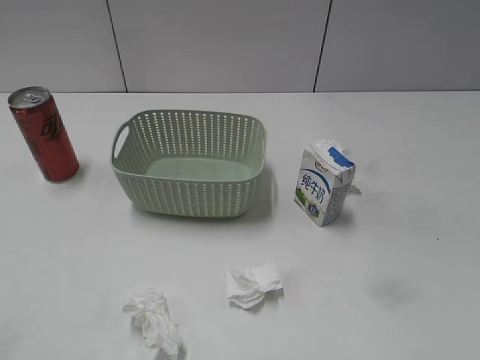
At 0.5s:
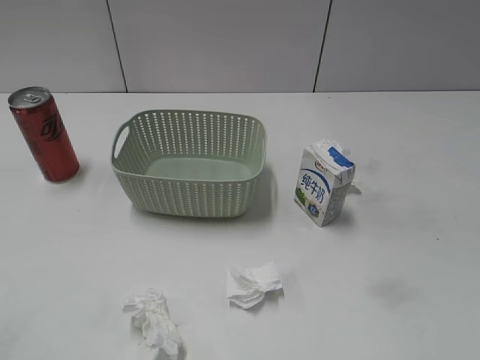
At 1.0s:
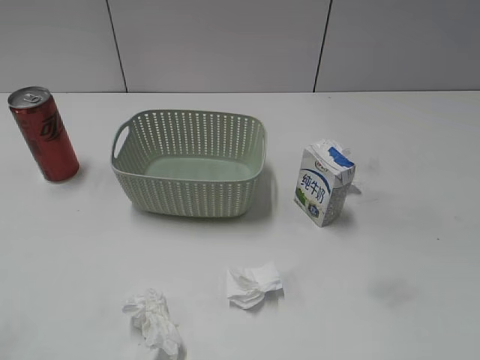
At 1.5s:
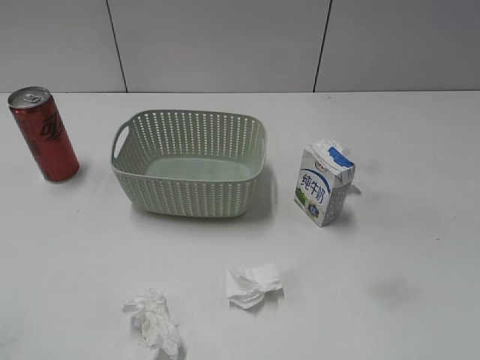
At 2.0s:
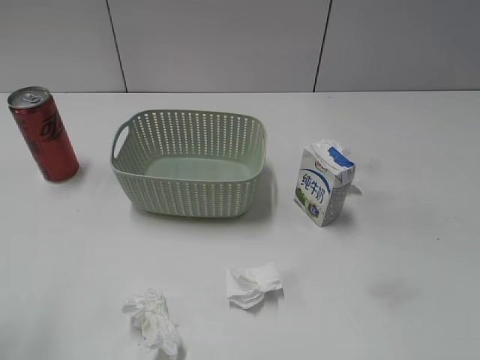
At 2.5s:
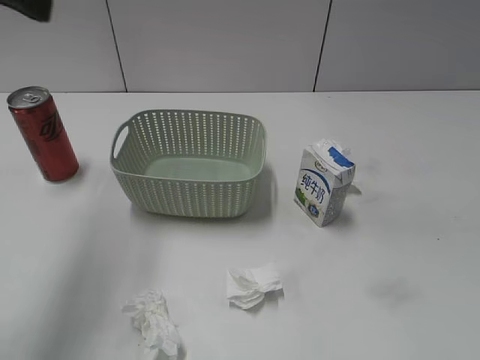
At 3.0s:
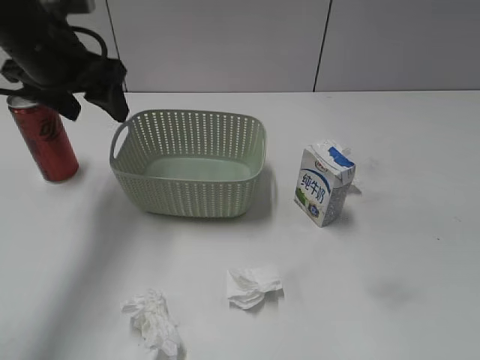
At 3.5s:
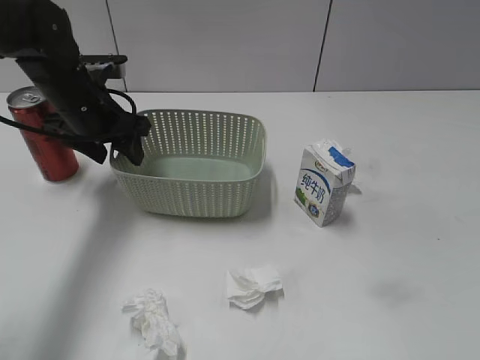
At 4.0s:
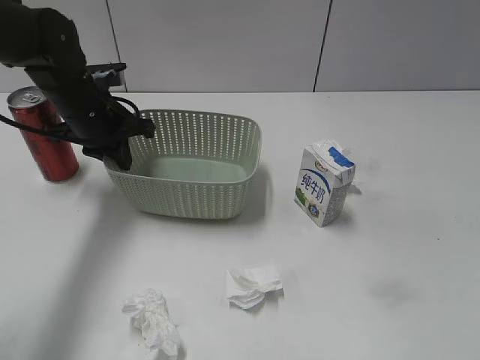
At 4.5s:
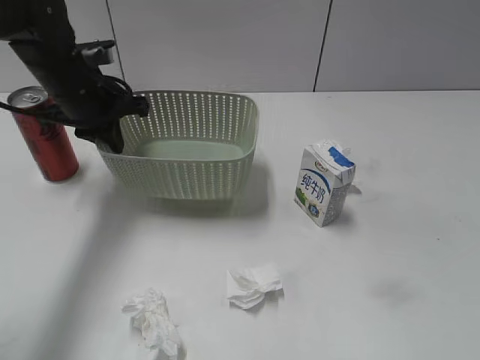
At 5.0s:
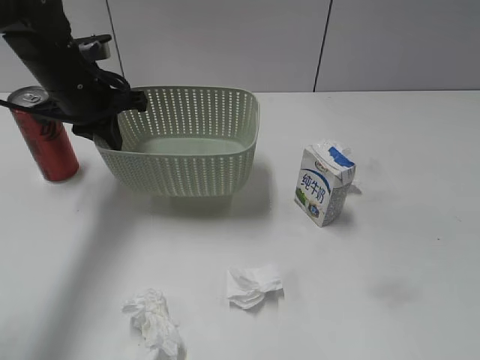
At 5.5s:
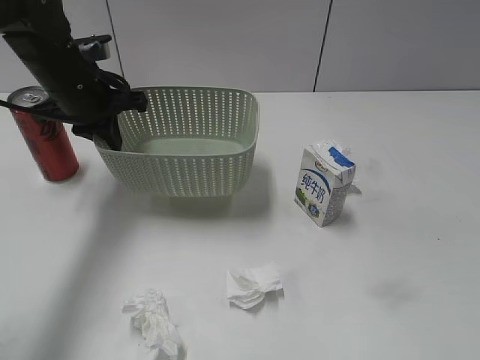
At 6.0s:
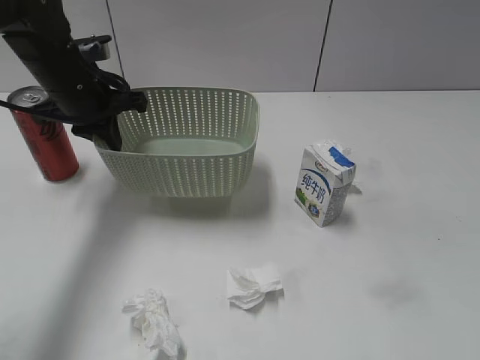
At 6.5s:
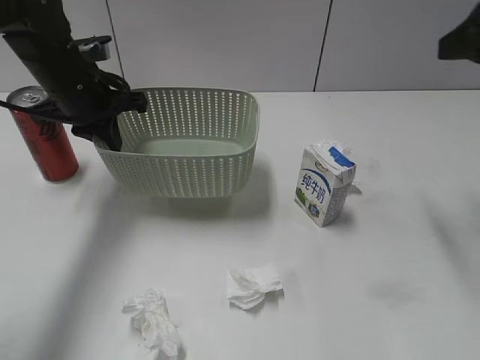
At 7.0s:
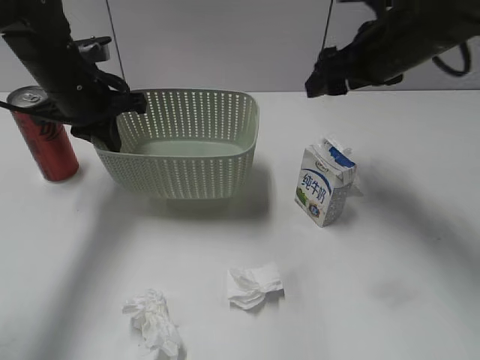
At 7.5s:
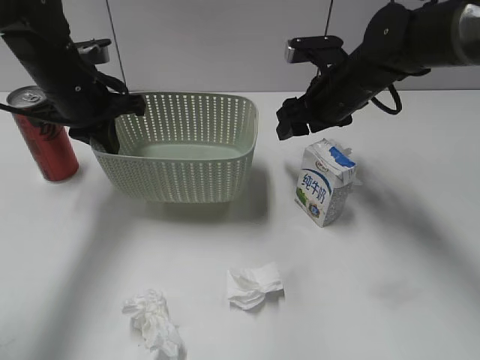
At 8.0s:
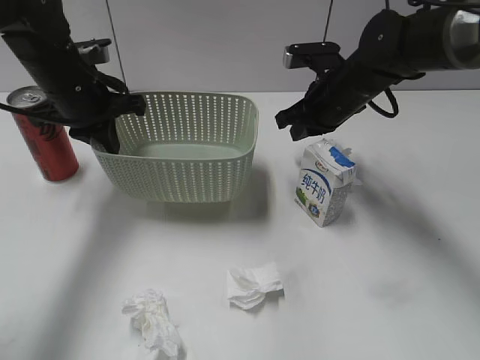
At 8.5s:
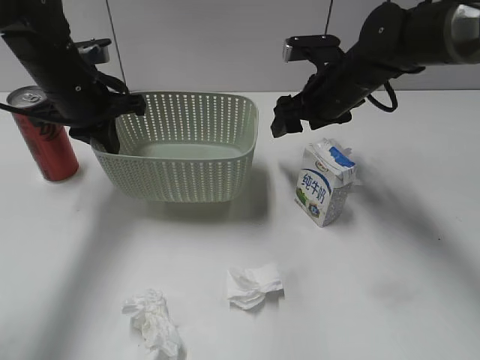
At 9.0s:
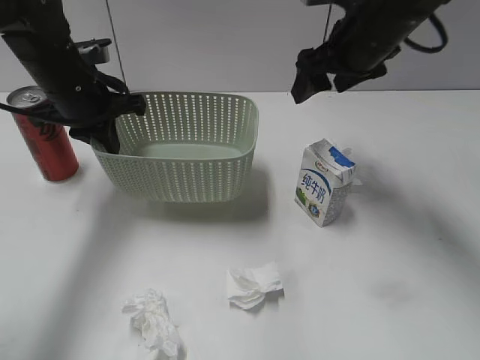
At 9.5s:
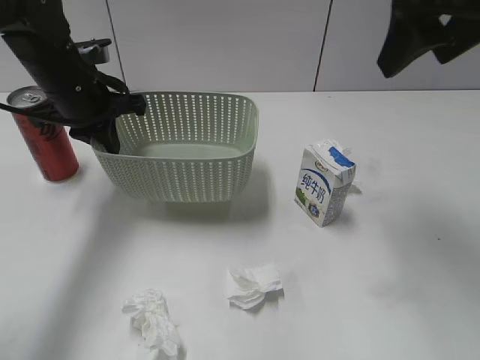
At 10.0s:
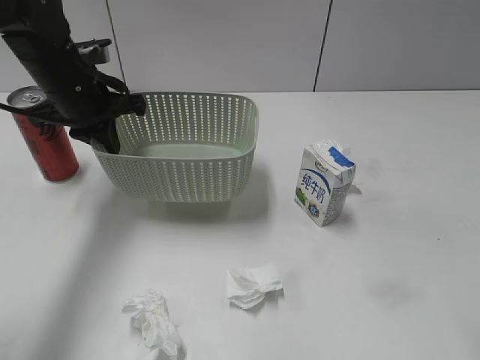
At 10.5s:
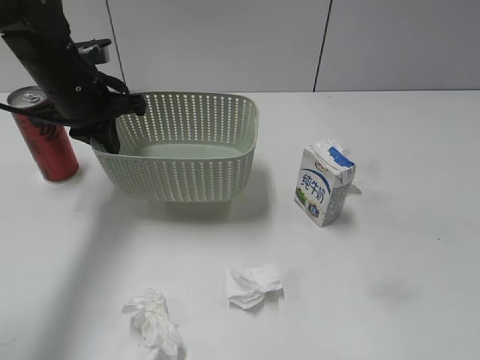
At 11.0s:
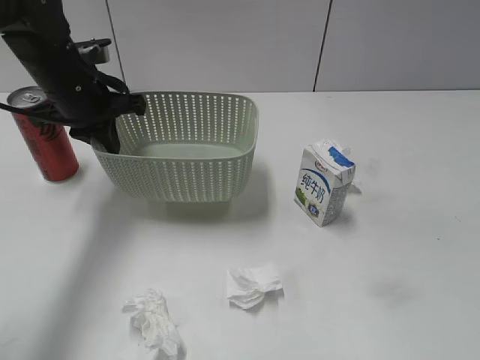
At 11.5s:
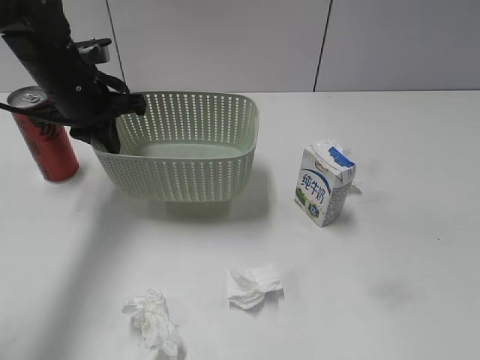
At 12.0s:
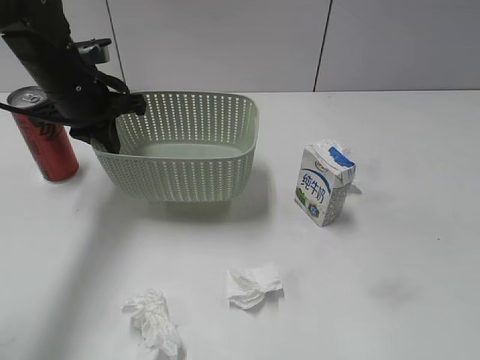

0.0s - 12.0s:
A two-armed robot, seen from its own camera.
Step, 2.5s - 4.0s: Grasp the basket with left gripper.
2.0s - 4.0s: The left gripper moves forward, downward and to the right, roughly 35 cm, and closes its fingers.
4.0s - 6.0s: The right gripper heads forward, covering some 15 cm.
6.0s - 8.0s: The right gripper moves forward, to the left and downward, about 35 cm, and closes.
8.0s - 10.0s: The right gripper heads backward, upward and to the right, covering approximately 35 cm, and opens up.

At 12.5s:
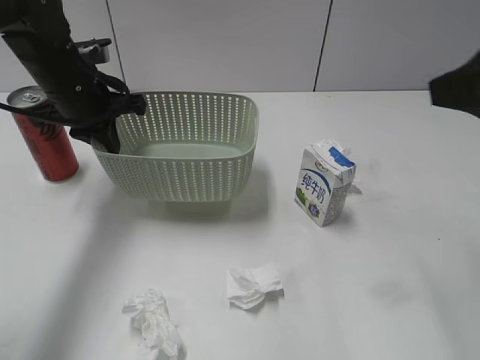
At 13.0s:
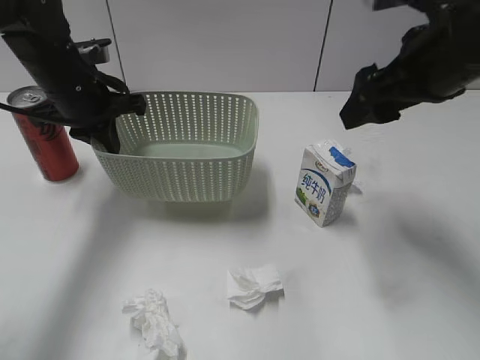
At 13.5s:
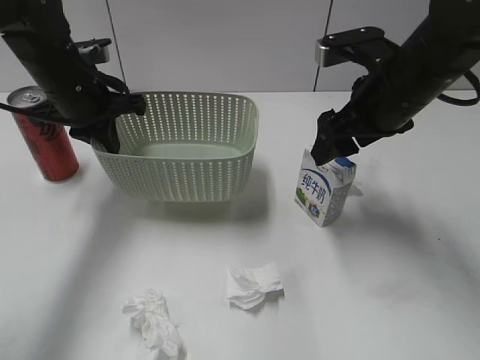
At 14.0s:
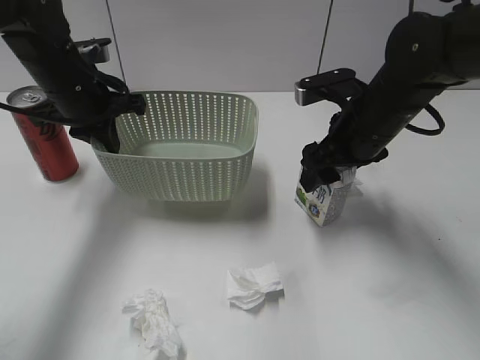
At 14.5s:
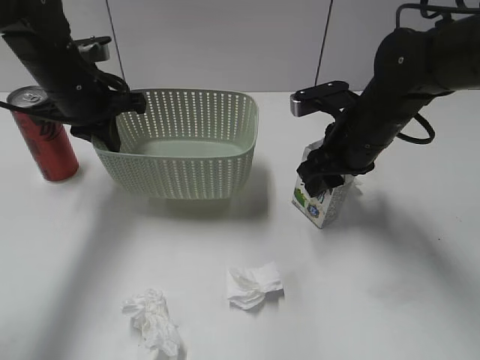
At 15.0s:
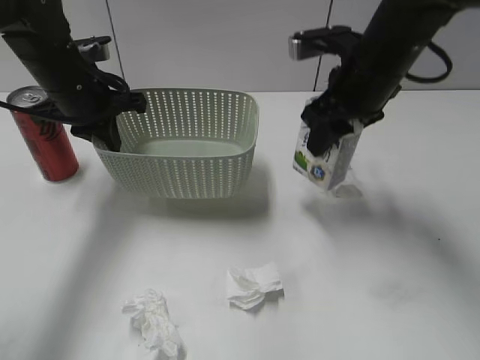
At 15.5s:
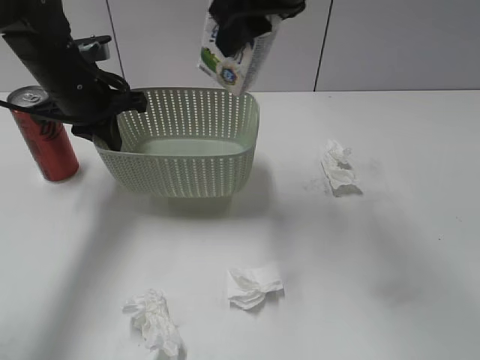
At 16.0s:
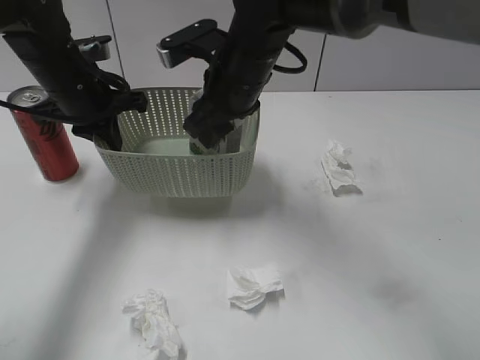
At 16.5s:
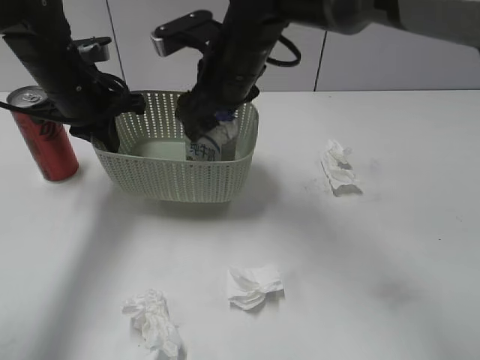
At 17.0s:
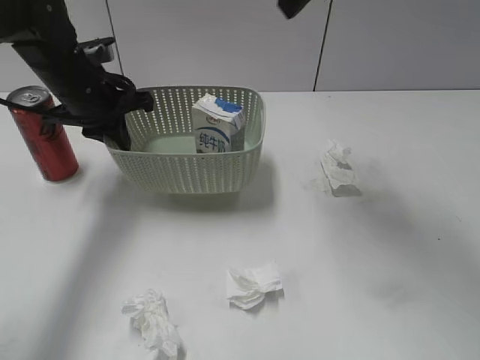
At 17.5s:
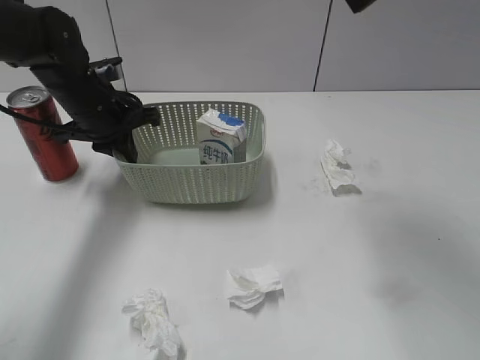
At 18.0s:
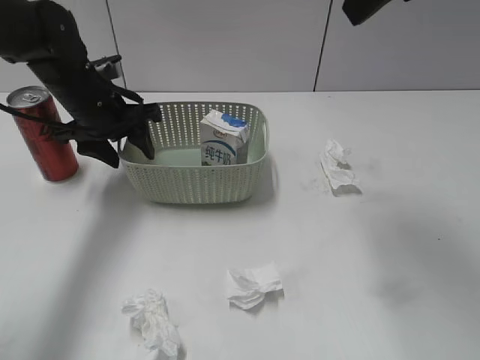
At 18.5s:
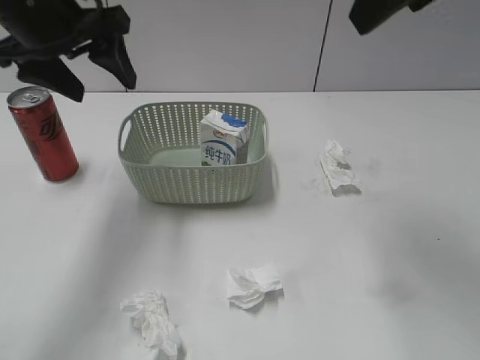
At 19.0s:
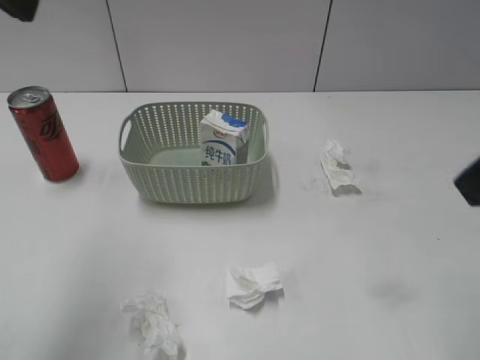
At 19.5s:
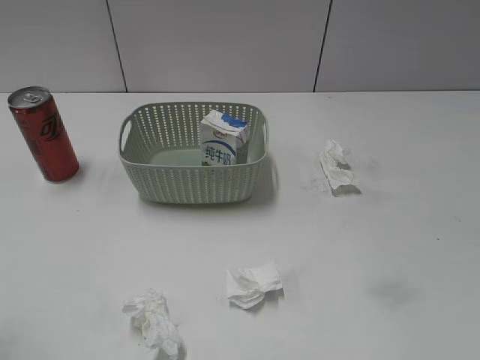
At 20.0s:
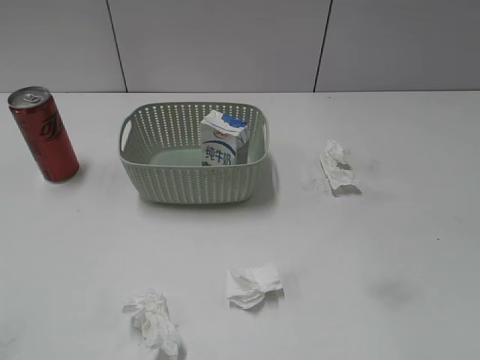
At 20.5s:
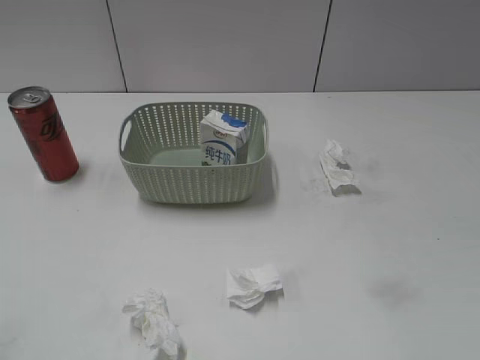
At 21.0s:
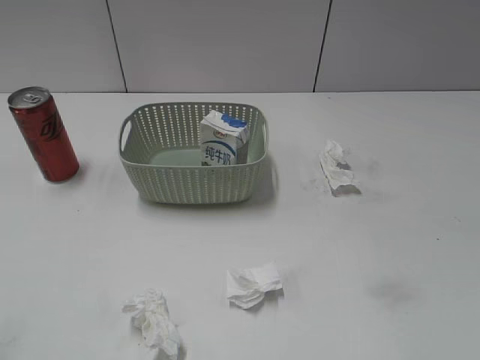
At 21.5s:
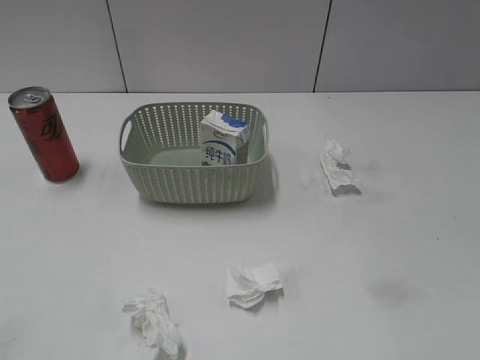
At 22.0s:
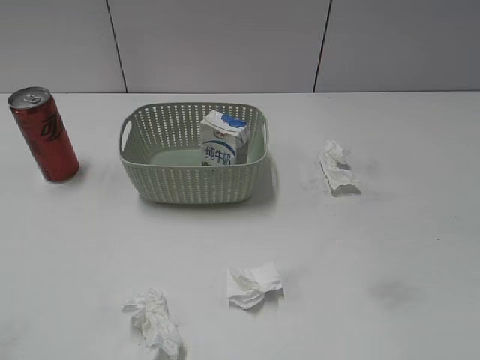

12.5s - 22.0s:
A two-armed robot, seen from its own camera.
Step, 12.5s - 14.5s: Grasp the milk with right gripper.
Step, 15.0s - 16.5s: Place the milk in the basket with right gripper.
Step, 17.0s - 18.0s: Place the basket on the table with left gripper.
12.5s - 14.5s: The right gripper goes approximately 25 cm downward, forward and to the left, and closes its fingers.
14.5s - 16.5s: The right gripper travels to the left and upward by some 15 cm, and opens its fingers.
16.5s - 18.0s: The right gripper moves upward, to the right and backward, some 25 cm. The left gripper opens up.
18.0s - 20.0s: The left gripper shifts roughly 35 cm backward; the right gripper shifts approximately 35 cm backward, to the right and downward.

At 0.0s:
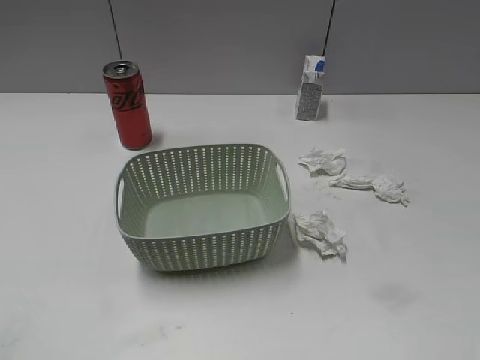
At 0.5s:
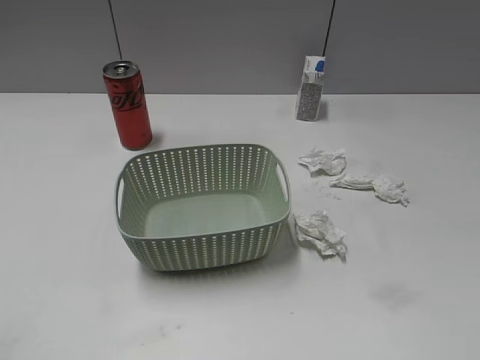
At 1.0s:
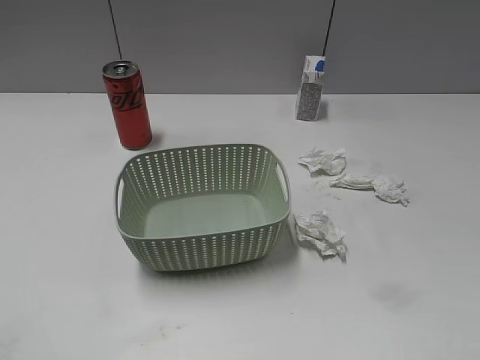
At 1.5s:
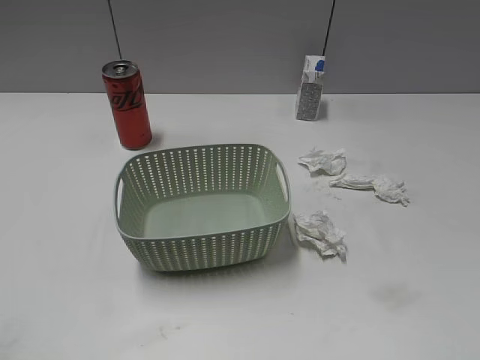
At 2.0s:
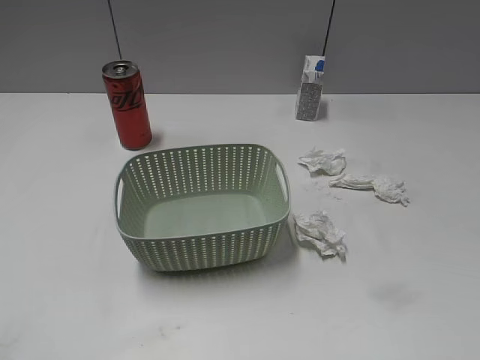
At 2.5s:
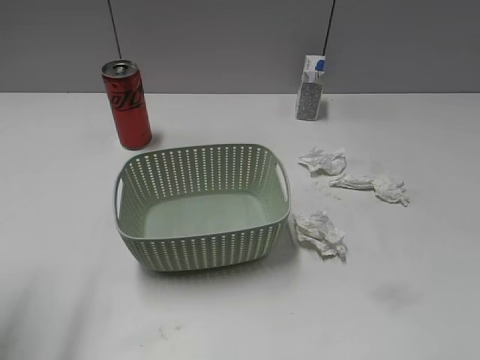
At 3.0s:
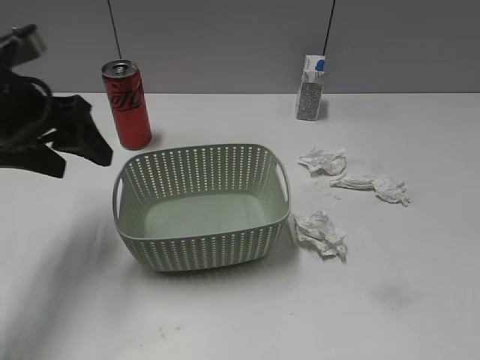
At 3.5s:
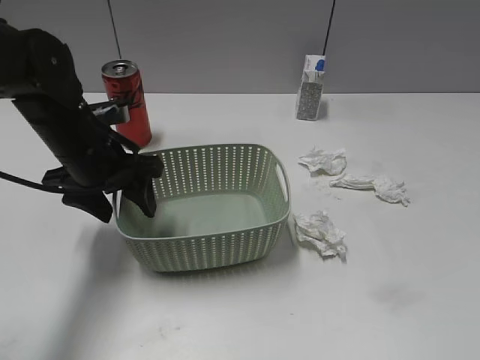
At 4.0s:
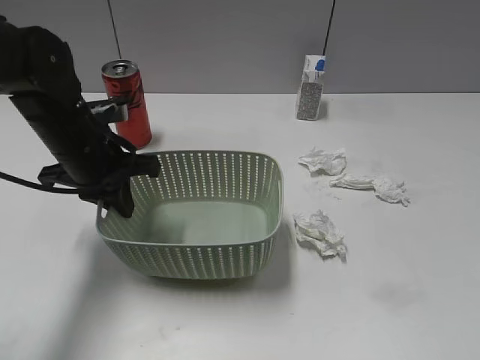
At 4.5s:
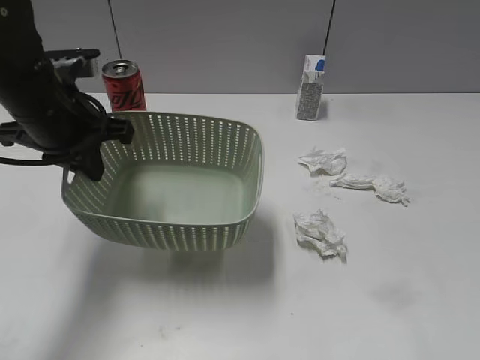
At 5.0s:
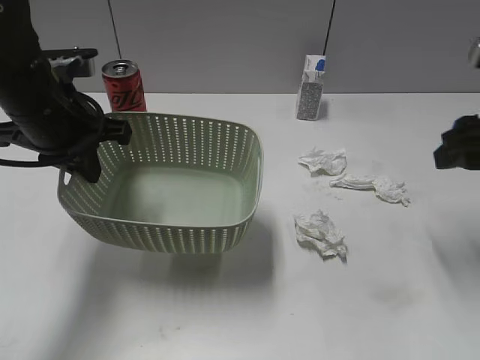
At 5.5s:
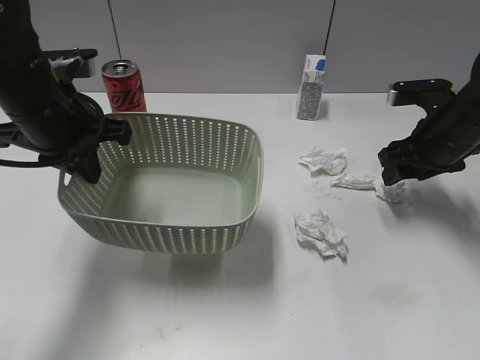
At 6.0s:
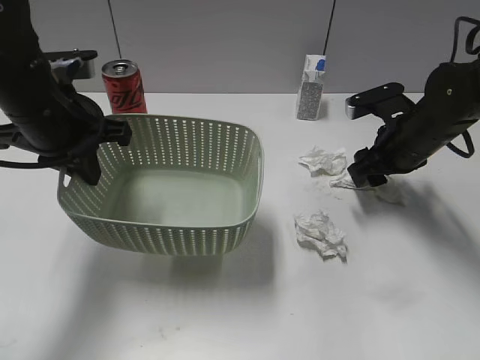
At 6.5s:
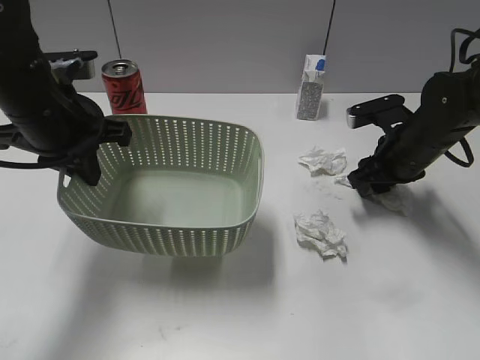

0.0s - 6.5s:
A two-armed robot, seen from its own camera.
Step, 2.5s - 3.5s: Grasp the basket with left gripper.
2.0s - 4.5s: The right gripper heads forward, covering roughly 10 cm, while the left gripper travels forward by approximately 30 cm, and closes up.
4.5s - 6.5s: The right gripper heads forward and downward, covering roughly 35 cm.
